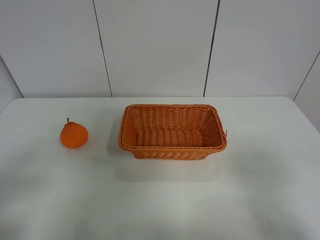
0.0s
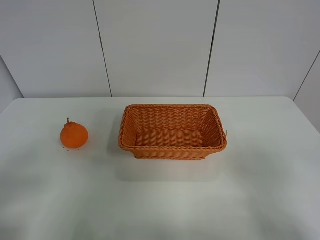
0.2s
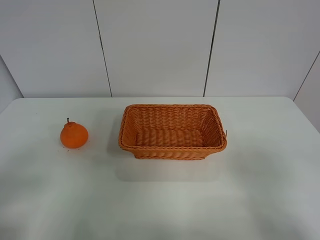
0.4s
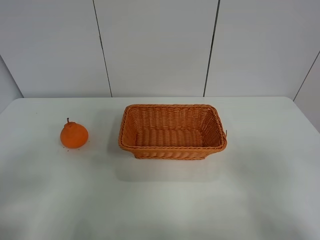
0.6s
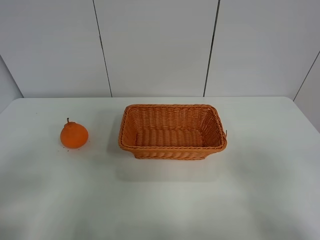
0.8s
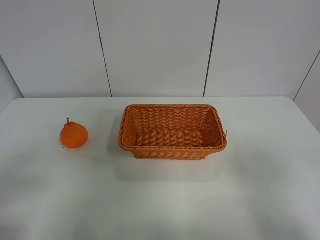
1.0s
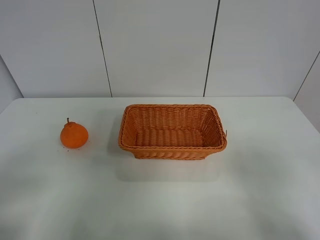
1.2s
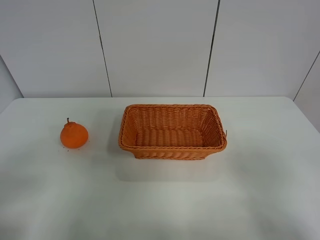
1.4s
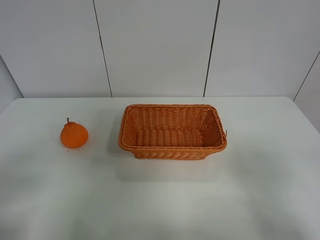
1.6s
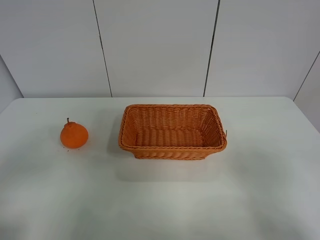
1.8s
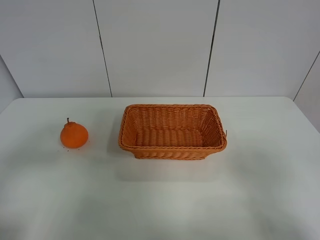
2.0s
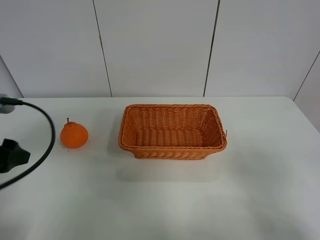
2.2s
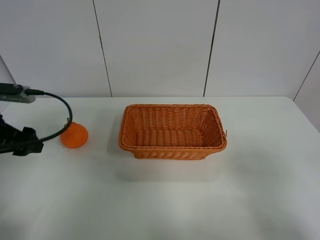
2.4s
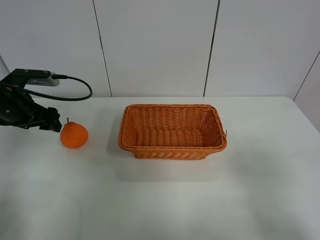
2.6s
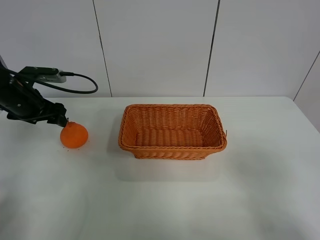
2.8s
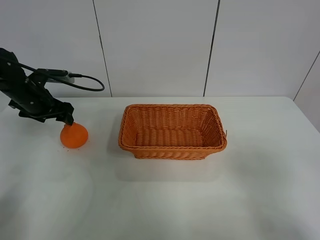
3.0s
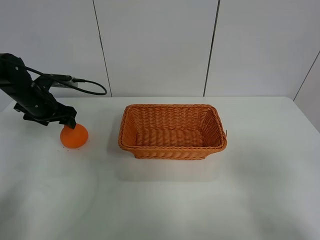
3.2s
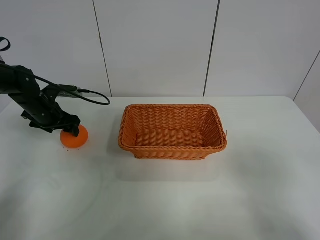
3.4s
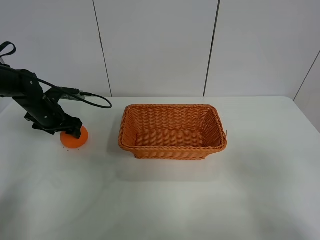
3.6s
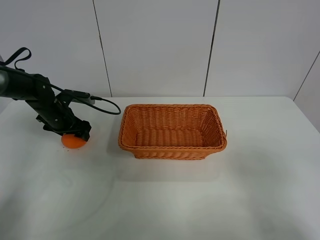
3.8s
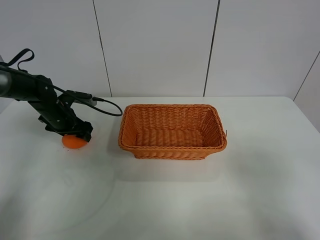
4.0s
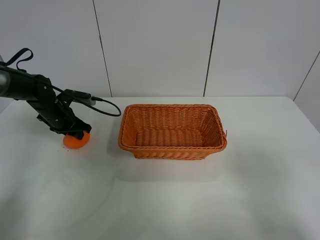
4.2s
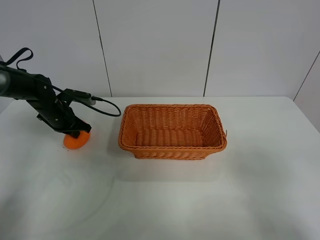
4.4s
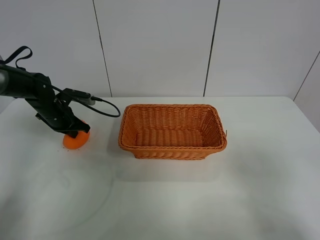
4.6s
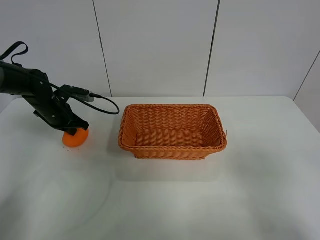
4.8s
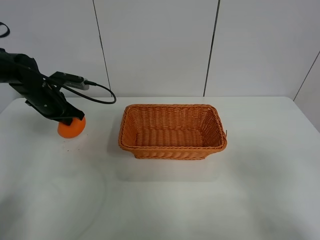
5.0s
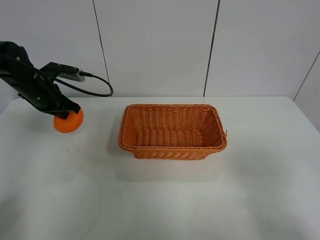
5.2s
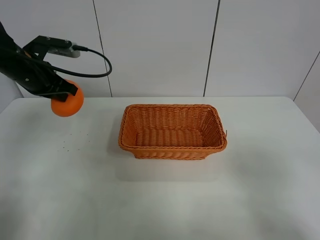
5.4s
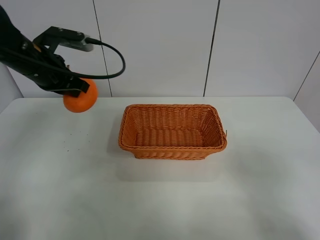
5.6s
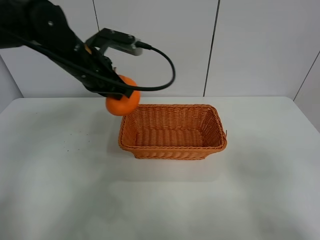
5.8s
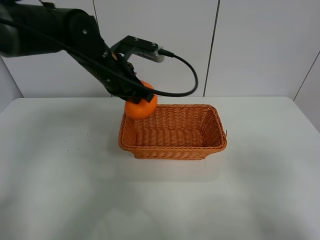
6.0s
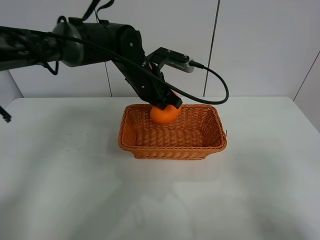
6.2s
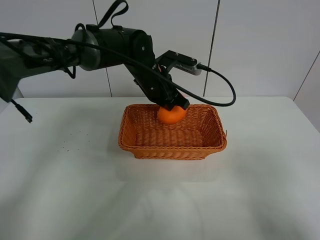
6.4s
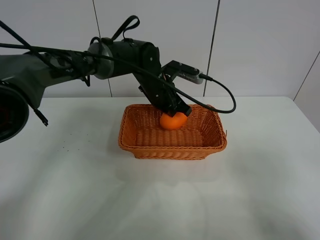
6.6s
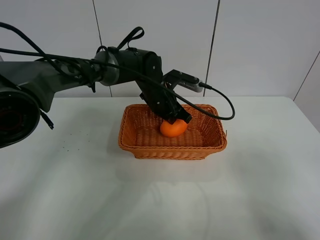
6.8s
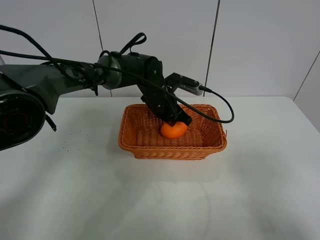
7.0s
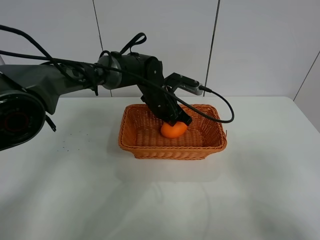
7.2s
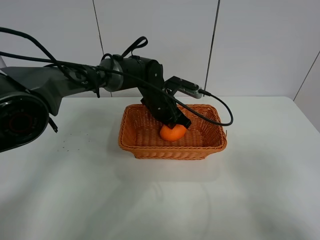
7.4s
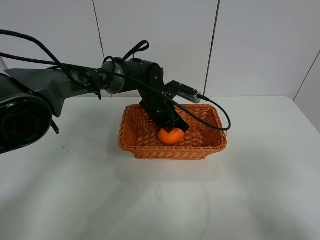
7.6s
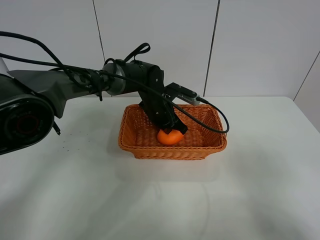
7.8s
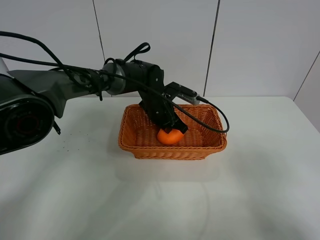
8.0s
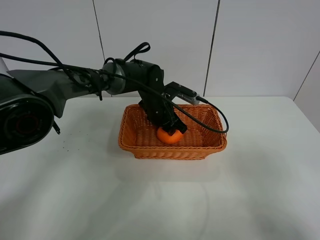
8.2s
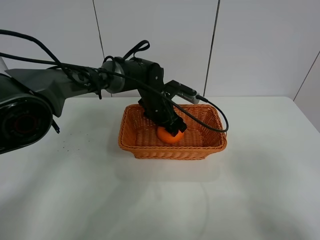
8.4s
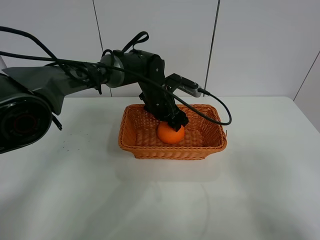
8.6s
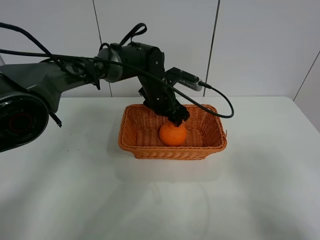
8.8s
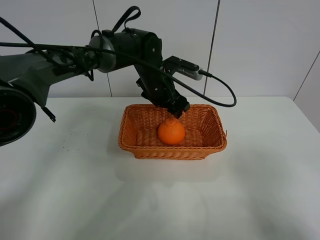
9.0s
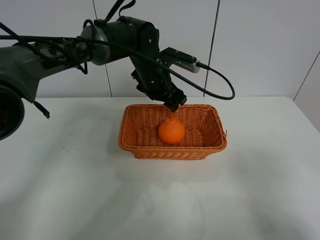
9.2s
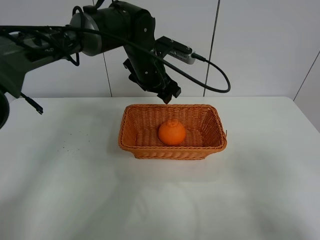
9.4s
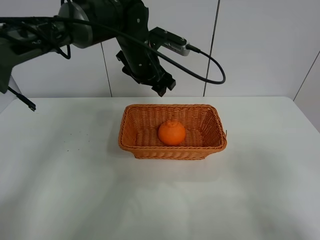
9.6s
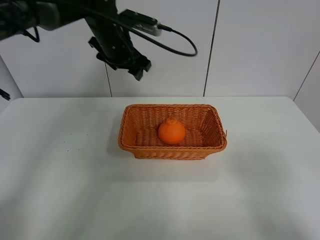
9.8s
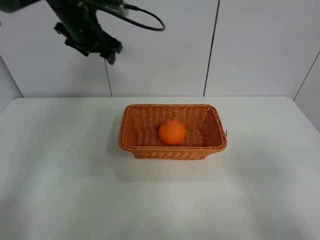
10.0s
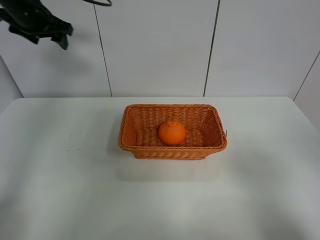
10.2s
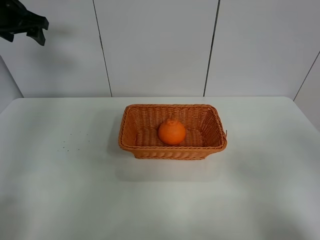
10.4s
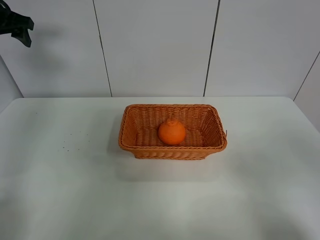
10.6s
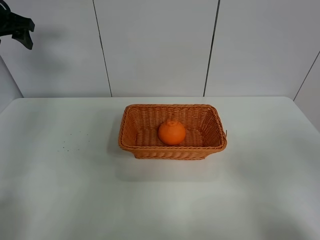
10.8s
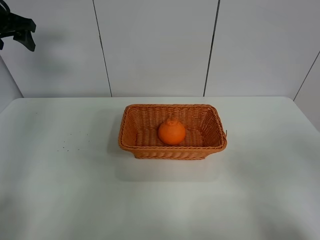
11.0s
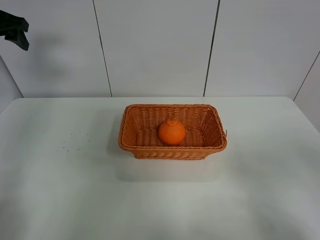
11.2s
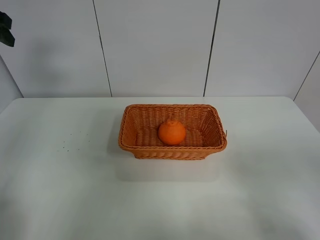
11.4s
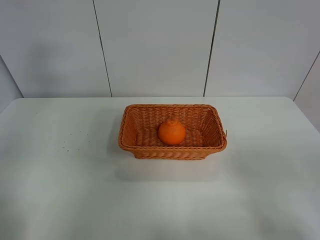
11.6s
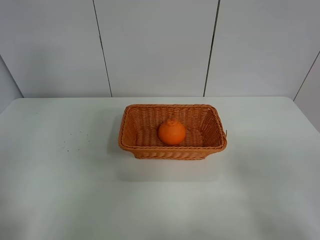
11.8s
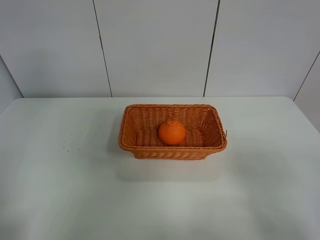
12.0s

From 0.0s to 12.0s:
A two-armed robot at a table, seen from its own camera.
Task of the whole recording: left gripper grabs oranges and puts them in the basket.
Step, from 0.0s to 4.4s: Grasp the orange with left gripper.
Step, from 4.6s to 10.0s: Place the orange in the basket with left gripper.
From 0.0s to 1.6s: Neither gripper changes place.
From 1.6s to 3.0s: The left gripper moves forward, roughly 40 cm.
From 3.0s to 4.4s: The left gripper travels downward by some 5 cm, and closes up.
From 4.4s to 6.0s: The left gripper heads to the right and upward, covering about 25 cm.
From 6.0s to 7.6s: The left gripper shifts some 15 cm downward, to the right and forward.
From 7.6s to 9.0s: The left gripper goes approximately 10 cm upward, and opens.
From 9.0s to 10.4s: The left gripper travels to the left and upward by approximately 35 cm.
From 10.4s to 12.0s: The left gripper travels backward by approximately 25 cm.

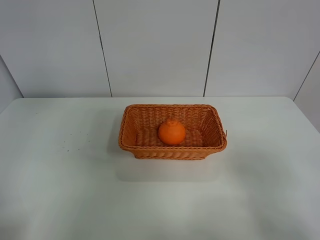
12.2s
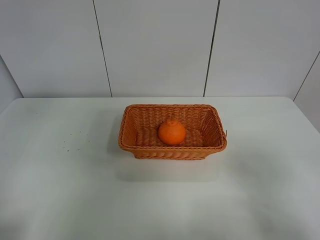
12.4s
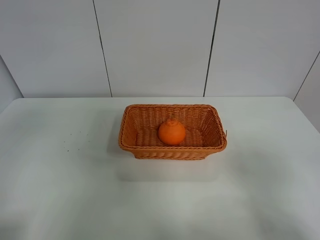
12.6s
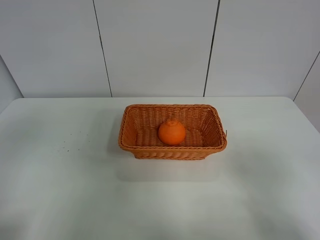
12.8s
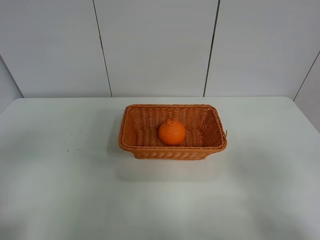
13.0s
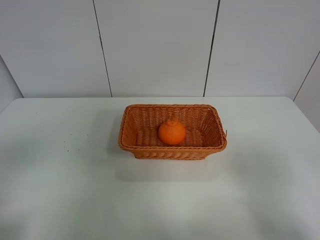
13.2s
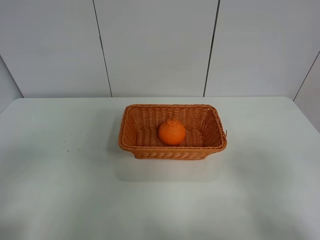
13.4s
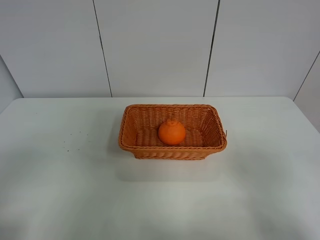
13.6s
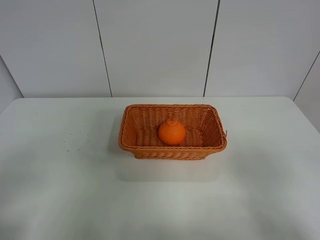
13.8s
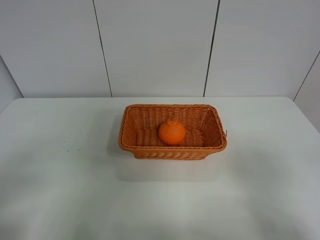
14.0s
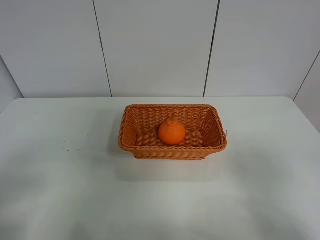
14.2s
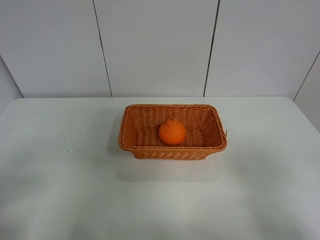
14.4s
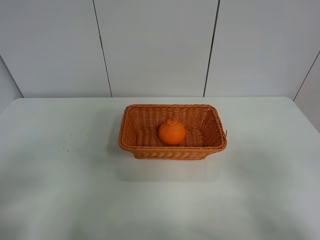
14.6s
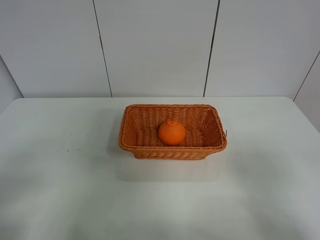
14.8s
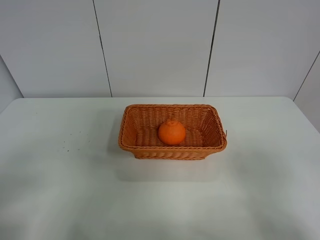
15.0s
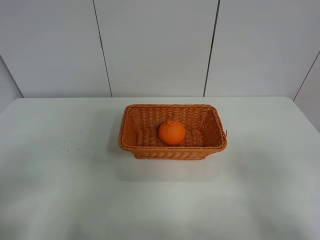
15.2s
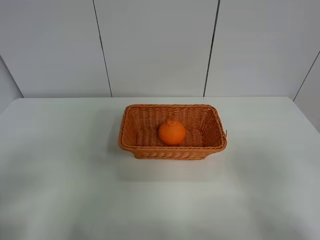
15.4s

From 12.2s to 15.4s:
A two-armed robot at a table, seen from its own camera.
Task of the whole recording: left gripper grabs oranges and puts them in the basket.
From 12.2s to 13.8s: The left gripper moves downward and backward, about 20 cm.
